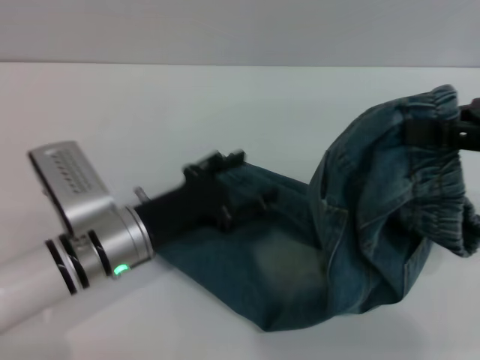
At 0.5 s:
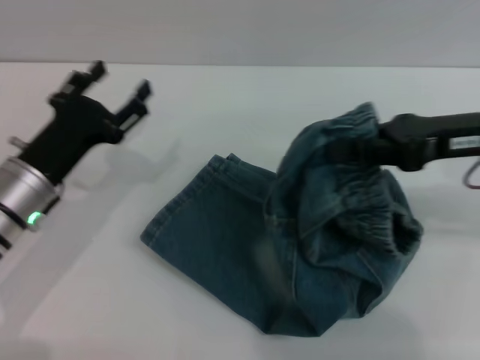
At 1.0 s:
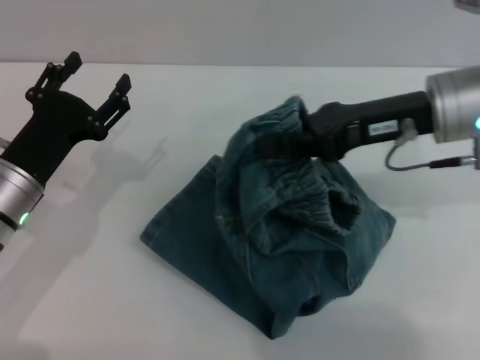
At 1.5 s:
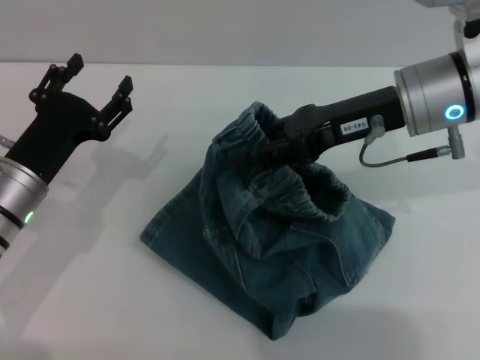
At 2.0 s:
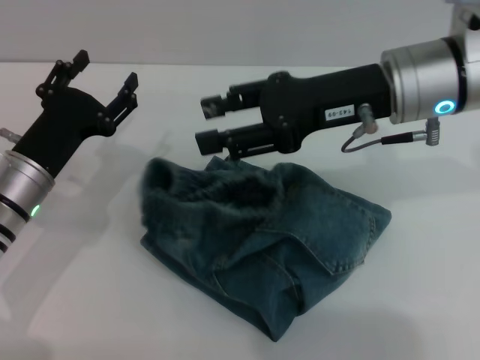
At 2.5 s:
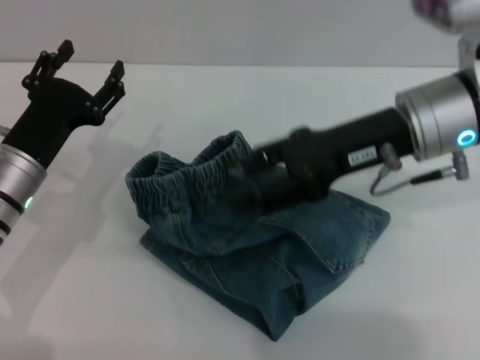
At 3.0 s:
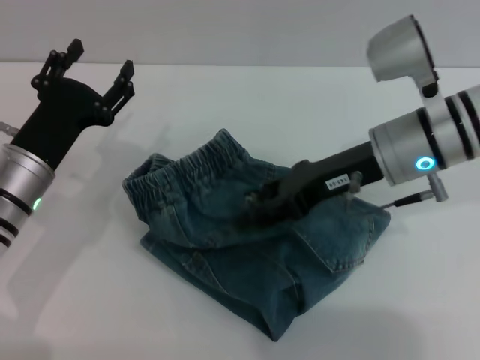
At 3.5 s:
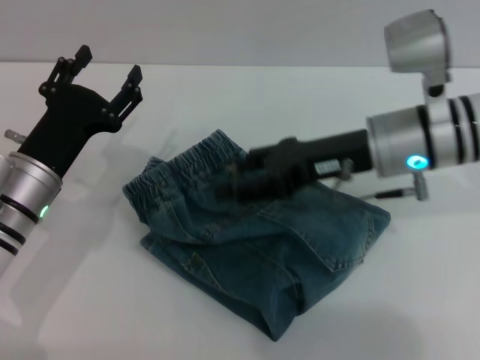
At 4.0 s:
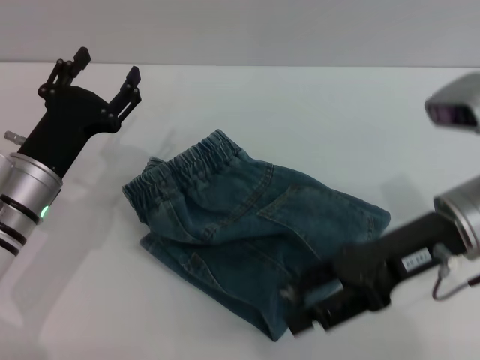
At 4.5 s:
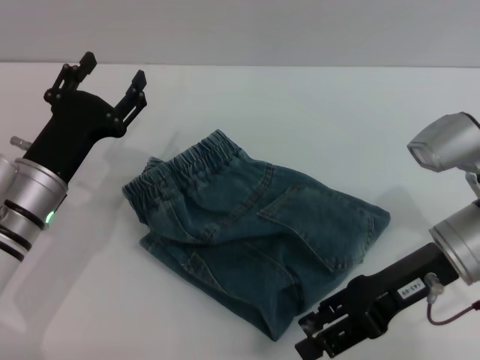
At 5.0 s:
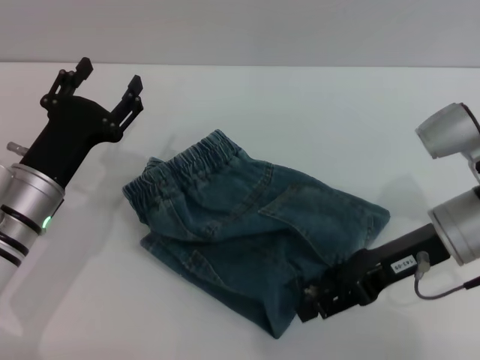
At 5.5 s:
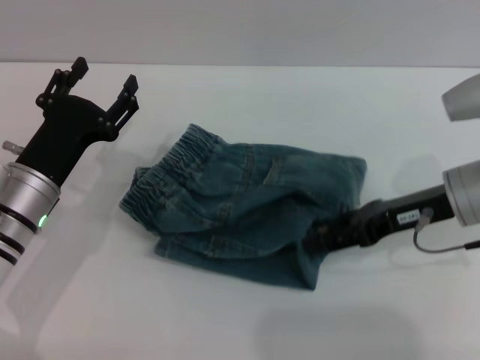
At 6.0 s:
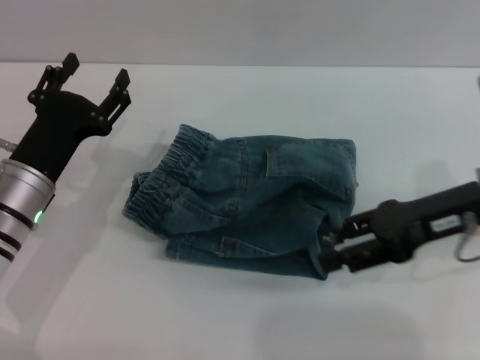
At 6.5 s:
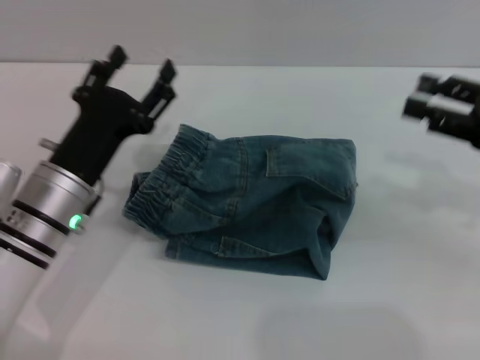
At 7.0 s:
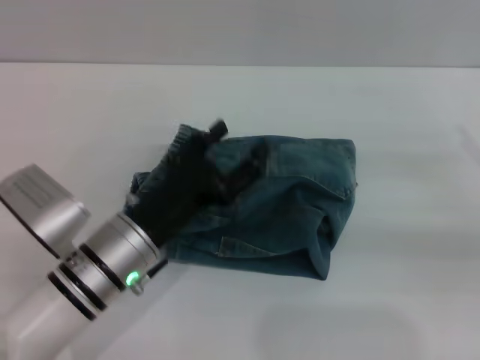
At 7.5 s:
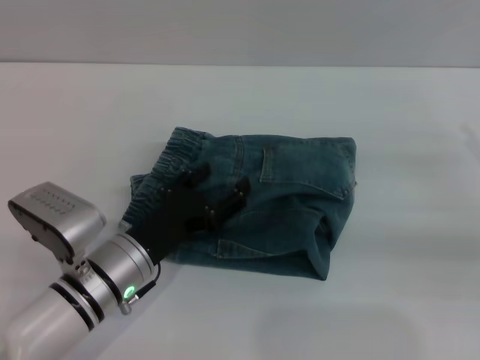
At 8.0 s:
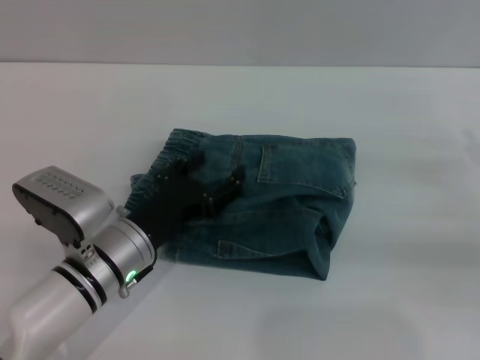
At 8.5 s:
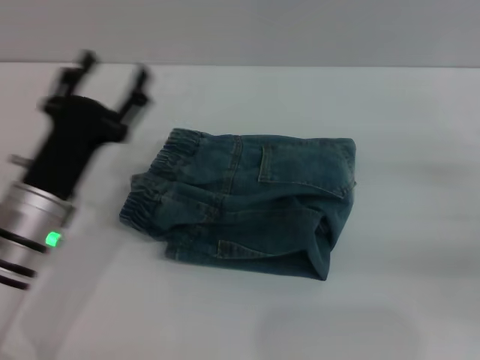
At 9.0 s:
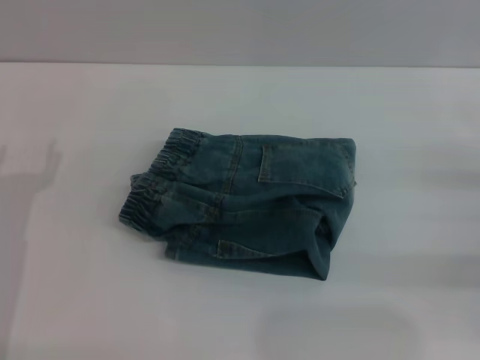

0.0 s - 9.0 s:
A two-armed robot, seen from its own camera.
Step, 0.0 s - 3.5 s: Fold the pants from right to left with the right gripper.
Step, 4.0 s - 6.0 s: Place the folded trousers onto the center area with the right grippers.
0.0 s - 2.0 s: The right gripper travels to the left by roughly 15 cm, and opens up. Meanwhile the left gripper moves to the left, roughly 10 cm.
2.0 s - 4.5 s: The right gripper heads downward, backward and to the right, covering approximately 15 cm.
4.5 s - 7.0 s: The right gripper travels to the right by about 15 cm, while the left gripper heads to the right, covering roughly 10 cm.
7.0 s - 9.0 s: The left gripper shifts about 15 cm to the left.

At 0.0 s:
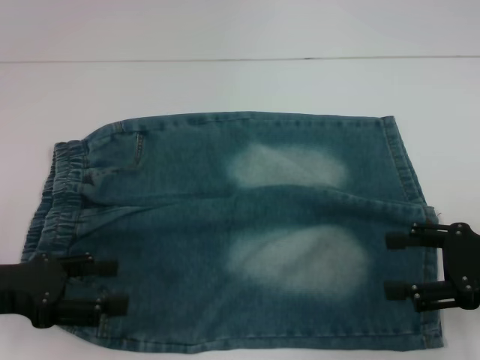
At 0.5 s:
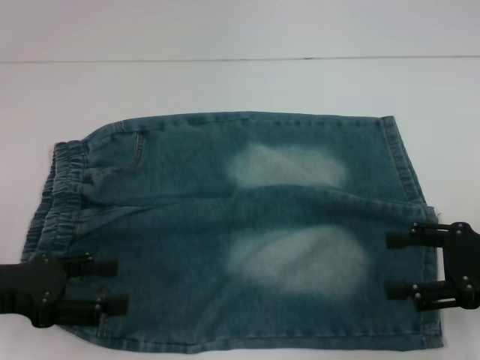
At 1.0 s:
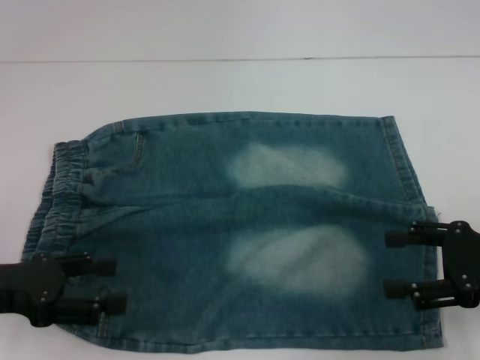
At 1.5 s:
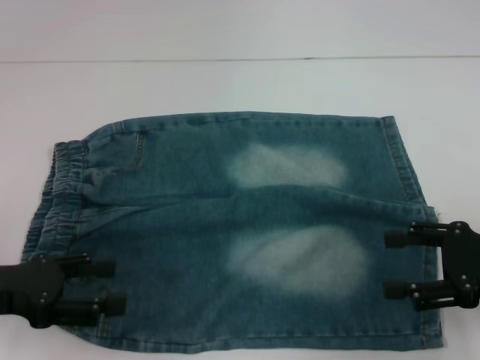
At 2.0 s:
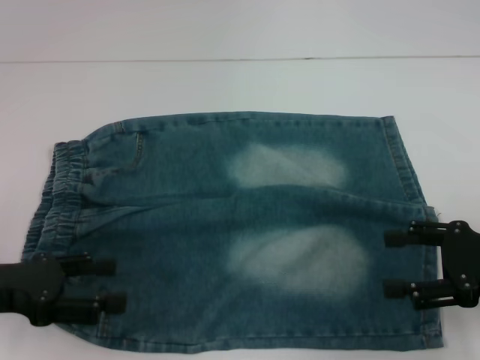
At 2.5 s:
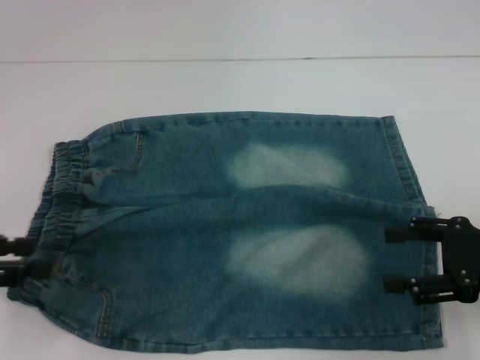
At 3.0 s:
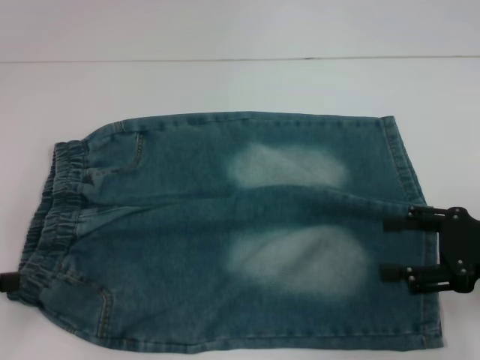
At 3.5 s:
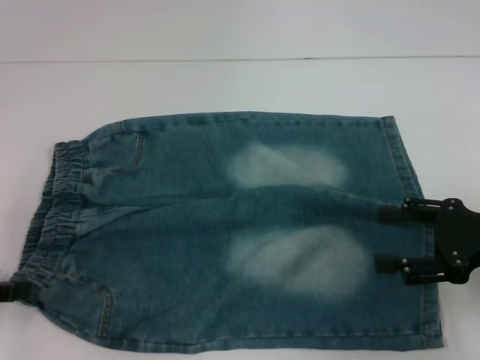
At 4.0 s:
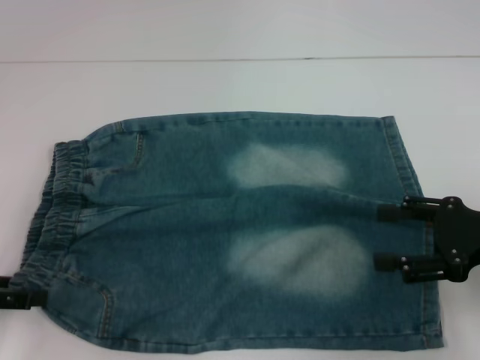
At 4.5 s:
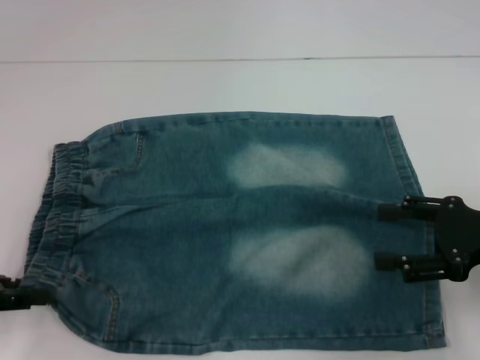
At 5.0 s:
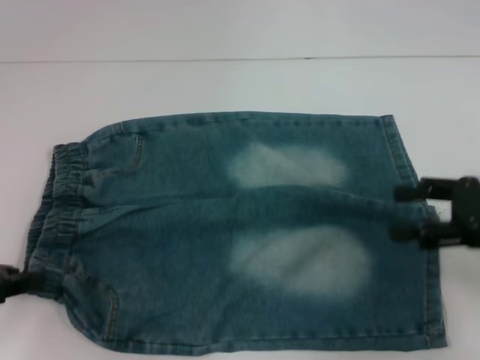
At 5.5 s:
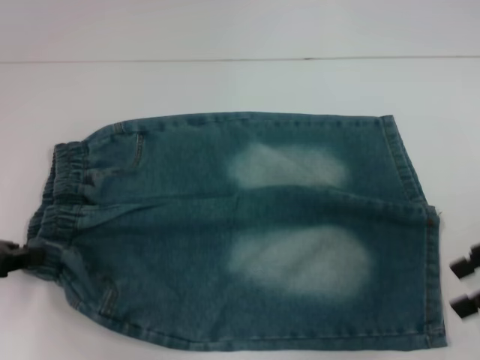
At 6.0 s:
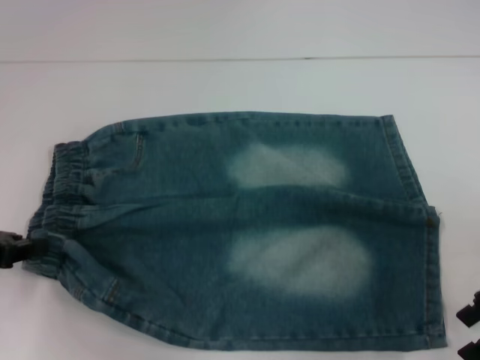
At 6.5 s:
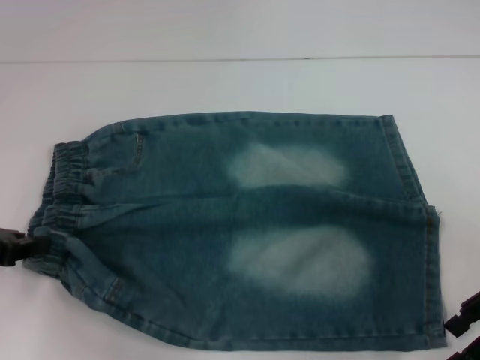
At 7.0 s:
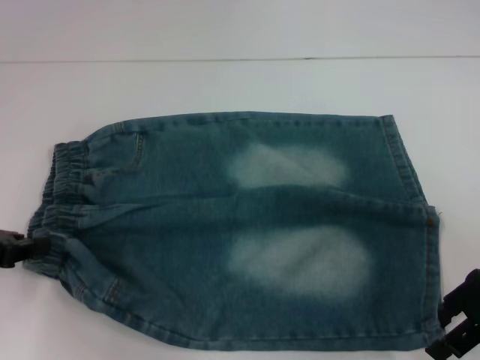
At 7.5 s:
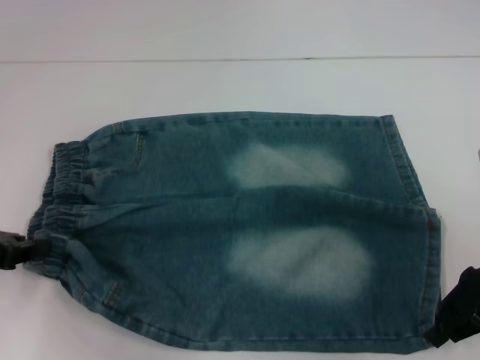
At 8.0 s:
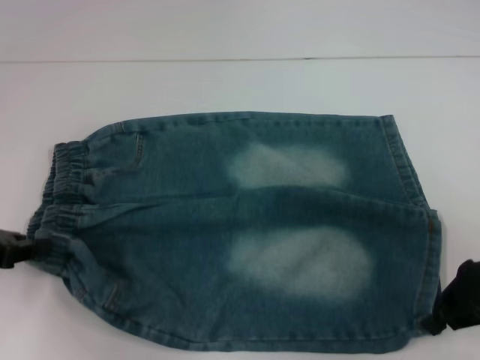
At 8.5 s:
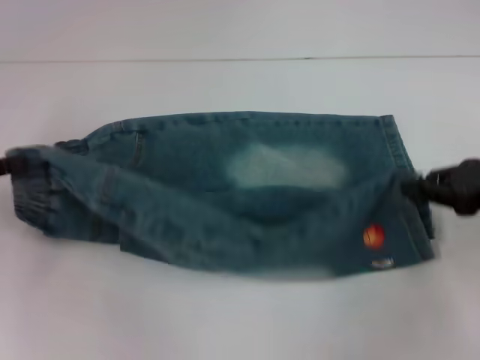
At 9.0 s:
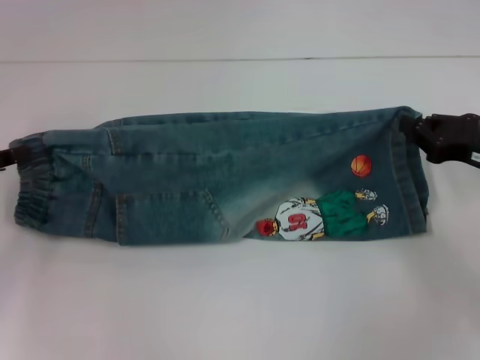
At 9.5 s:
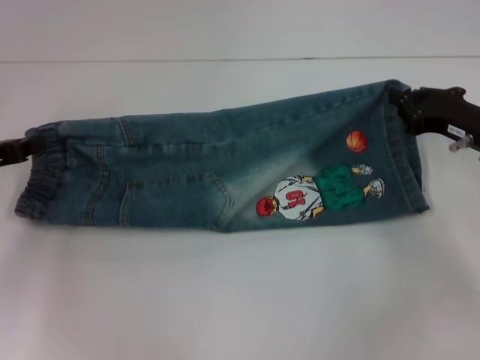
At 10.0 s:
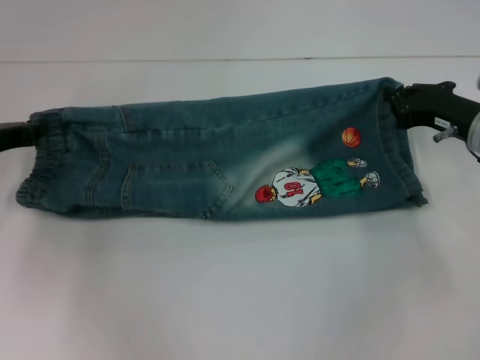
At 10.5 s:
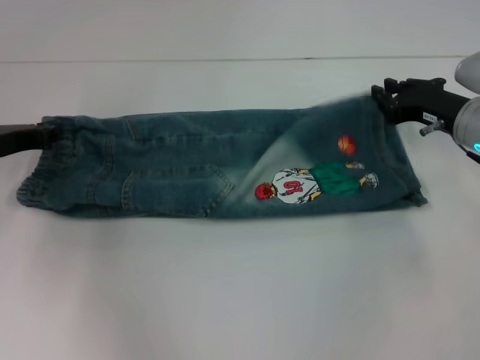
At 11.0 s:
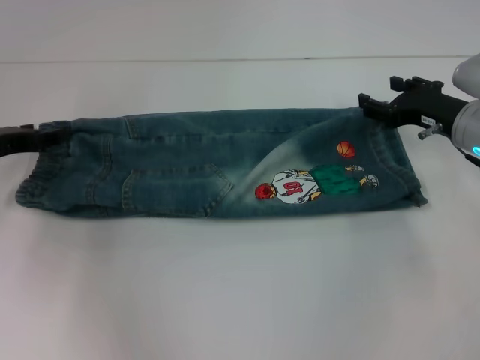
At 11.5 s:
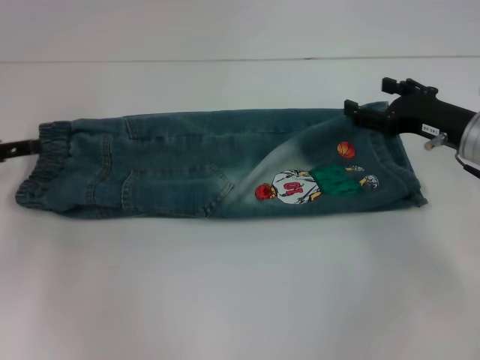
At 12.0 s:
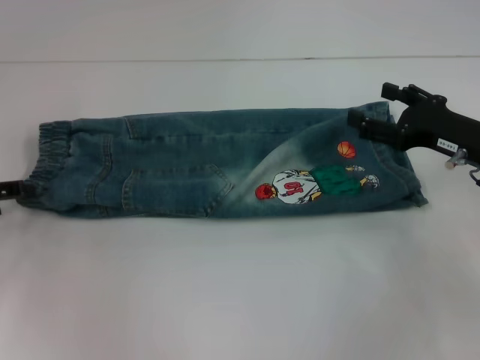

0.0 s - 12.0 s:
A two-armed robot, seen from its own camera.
Step, 0.0 s - 4.5 s: Hold the lower left waistband with your left hand.
Step, 5.0 s - 7.0 s: Grab the lower right pant leg with your right hand.
Step, 8.0 s - 11.0 s: Fold upward with your right hand.
0.0 s - 2.0 s: The two grippers keep their place.
4.0 s - 6.0 s: The left gripper closes its fingers.
6.0 s - 8.0 s: The right gripper closes up.
8.0 s - 10.0 s: Both grippers move forward, roughly 10 cm.
10.0 s - 12.0 s: The left gripper goes roughly 5 cm to the left, and opens; the right gripper opens its fingers.

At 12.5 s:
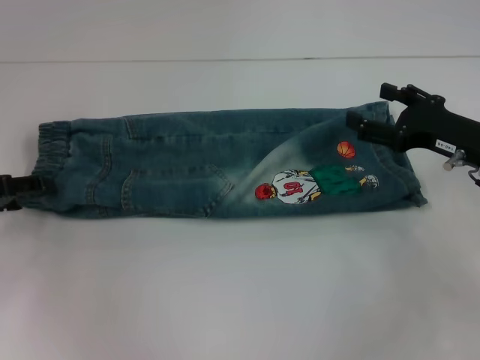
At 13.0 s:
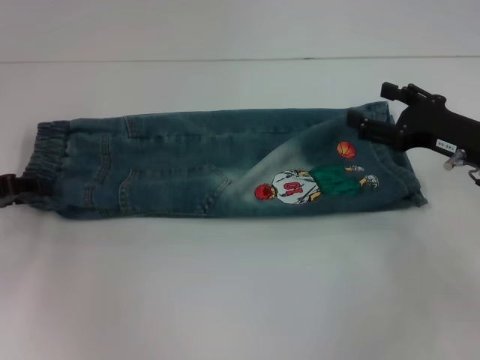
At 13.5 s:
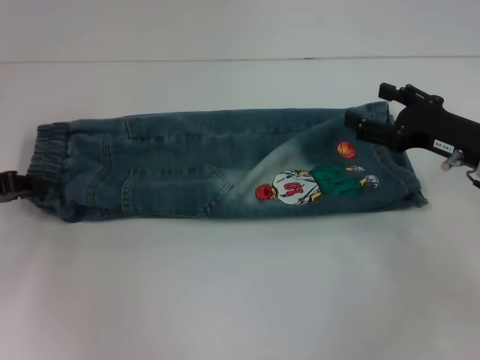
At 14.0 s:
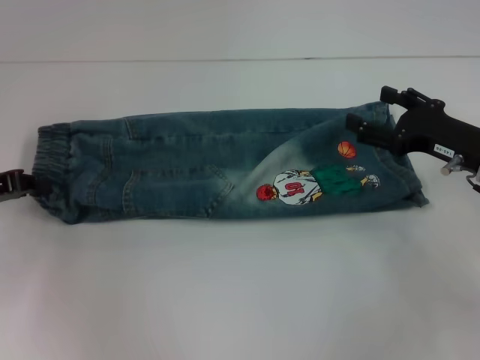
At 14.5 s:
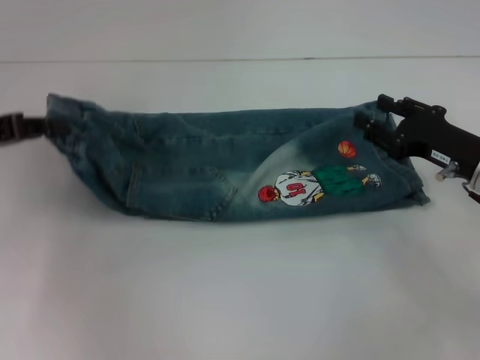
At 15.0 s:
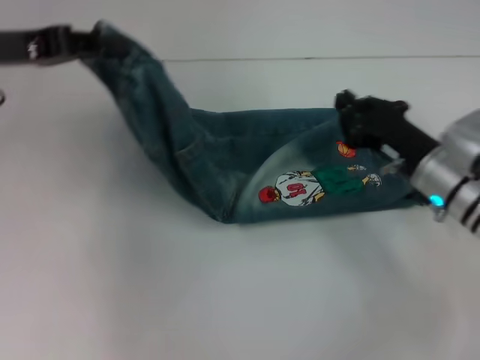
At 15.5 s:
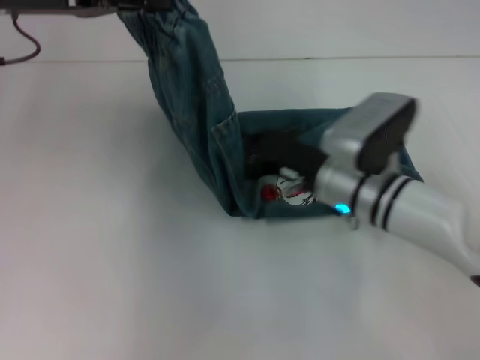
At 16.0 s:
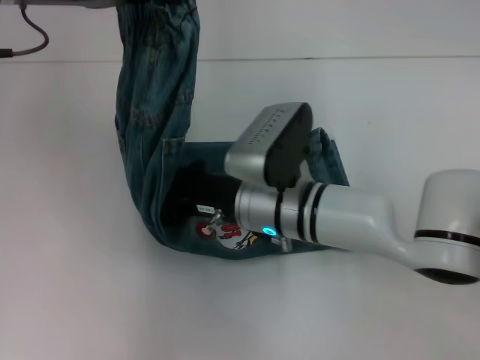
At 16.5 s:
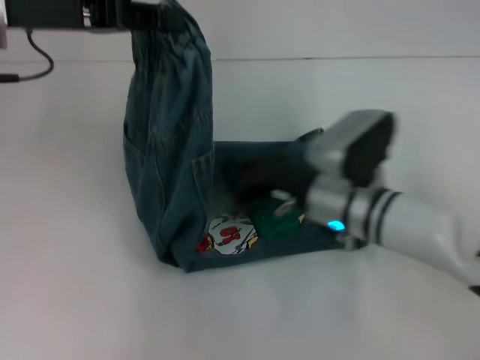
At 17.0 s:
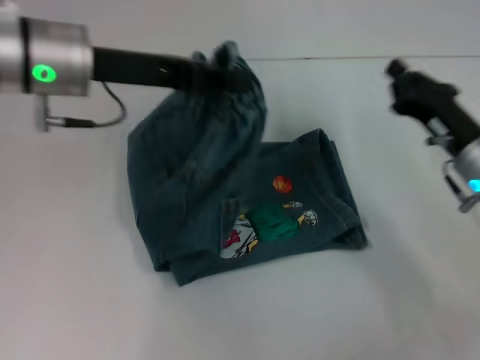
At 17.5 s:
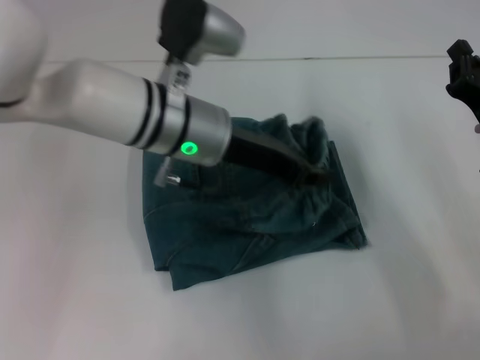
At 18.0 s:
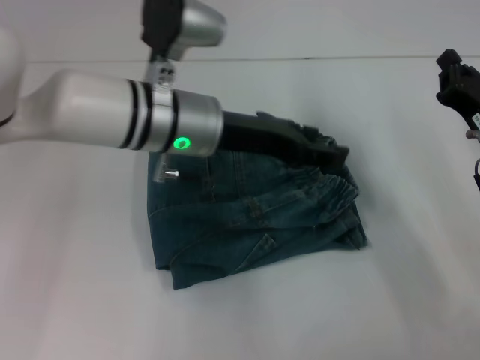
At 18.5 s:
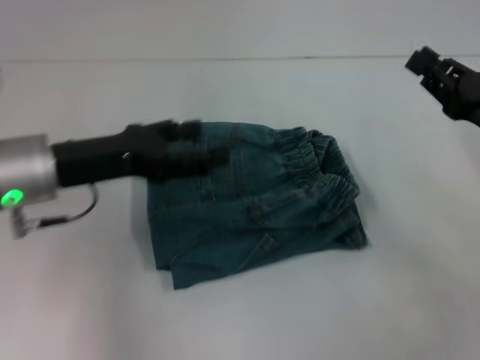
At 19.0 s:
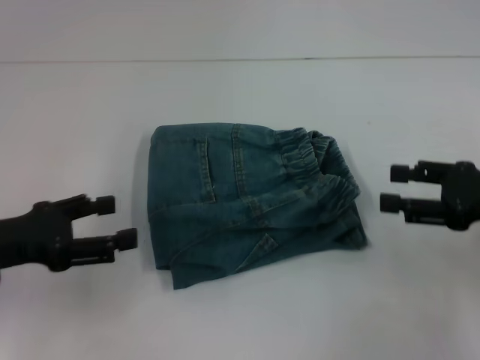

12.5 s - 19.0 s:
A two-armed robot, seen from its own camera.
Step, 12.5 s - 15.0 s: Hold the waistband with your left hand.
Step, 15.5 s - 16.0 s: Press the middle of the pants with your right hand.
Step, 16.5 s - 17.5 s: Fold to the right with your left hand.
12.5 s - 14.5 s: The left gripper heads upward, covering approximately 5 cm, and closes up.
14.5 s - 17.0 s: The right gripper reaches some 25 cm to the left, then returns, and closes its fingers, while the left gripper heads to the right, covering approximately 15 cm.
17.0 s - 19.0 s: The left gripper travels backward, to the left and downward by roughly 20 cm, and opens its fingers. Meanwhile the right gripper is displaced to the right and upward by some 10 cm, and opens its fingers.
